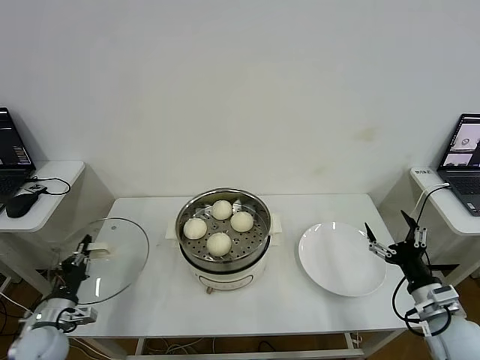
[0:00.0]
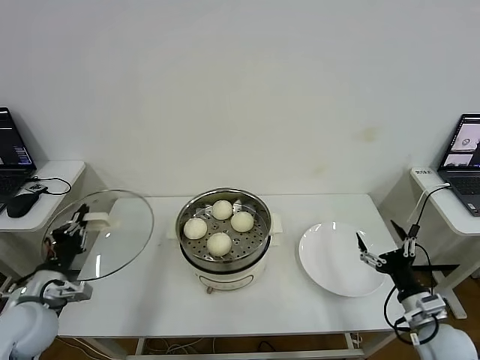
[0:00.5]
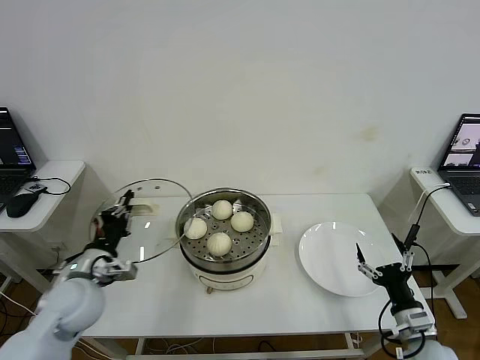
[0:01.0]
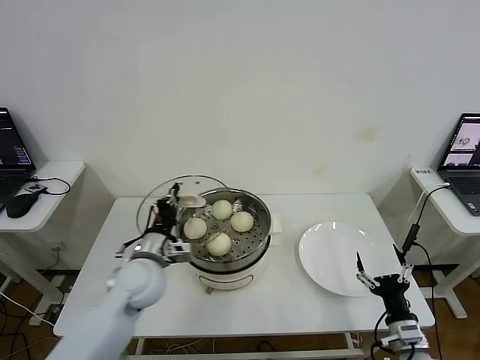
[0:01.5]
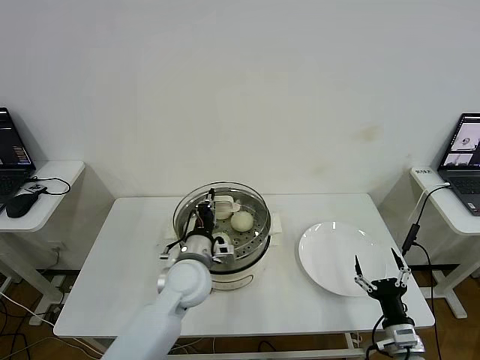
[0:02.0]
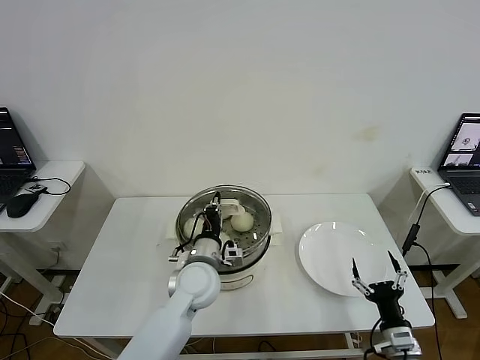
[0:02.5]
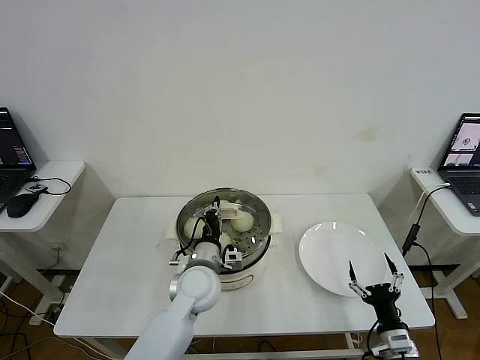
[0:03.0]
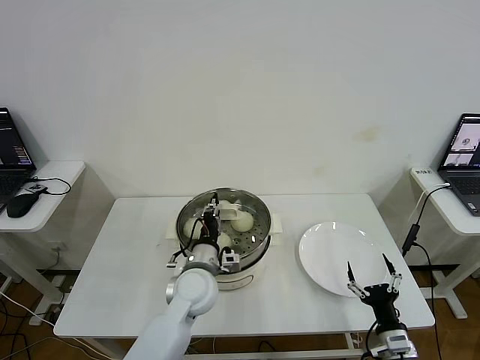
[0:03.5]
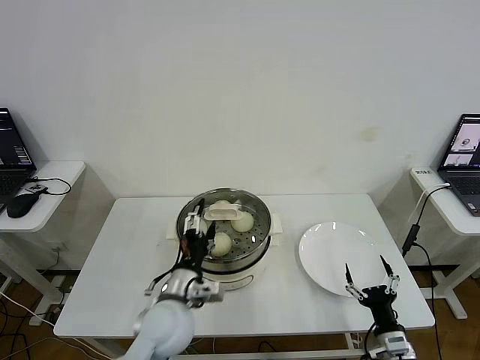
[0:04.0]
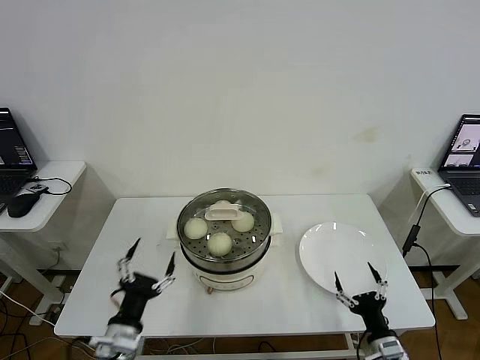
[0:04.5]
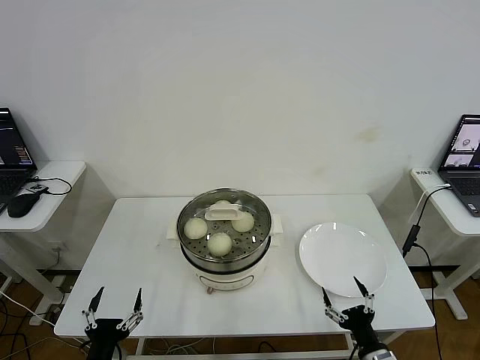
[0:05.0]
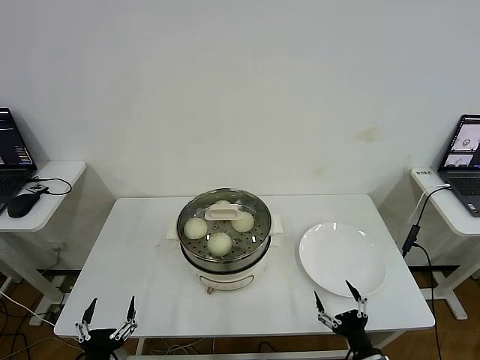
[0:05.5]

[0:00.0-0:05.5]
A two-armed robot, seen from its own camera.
Step, 0:00.0 to 0:03.5: Place the pot lid on the steamer with left gripper.
0:00.0 to 0:02.0: The right gripper shifts approximately 10 cm downward and to the left. Meanwhile the left gripper heads to the right and upward, covering some 35 cm.
0:02.0 to 0:03.5: The grippers stay close to where they were, moving slightly.
0:03.5 to 0:05.5: The right gripper ends up about 5 cm from where it was; the left gripper heads backward and to the left, covering approximately 35 cm, and opens up.

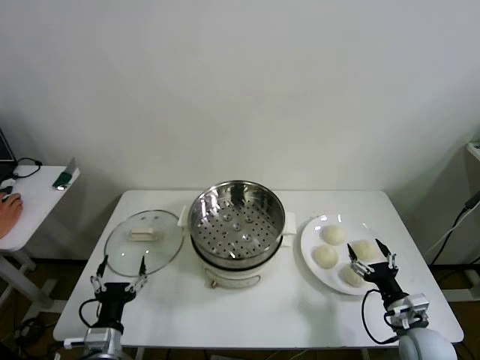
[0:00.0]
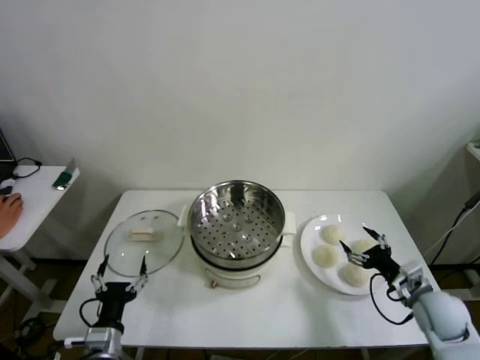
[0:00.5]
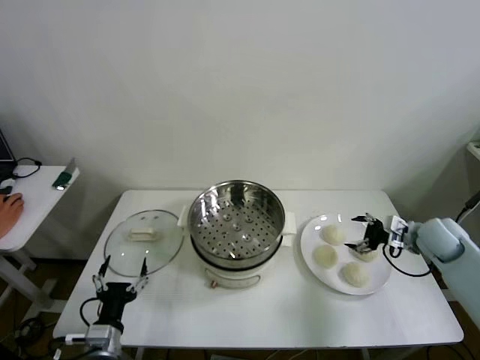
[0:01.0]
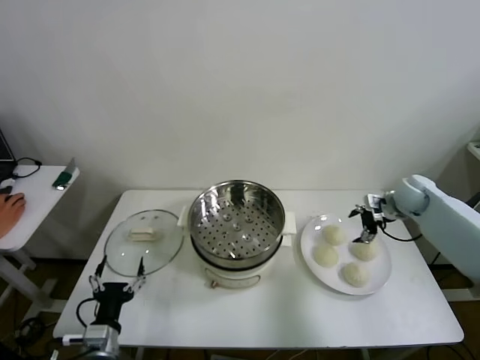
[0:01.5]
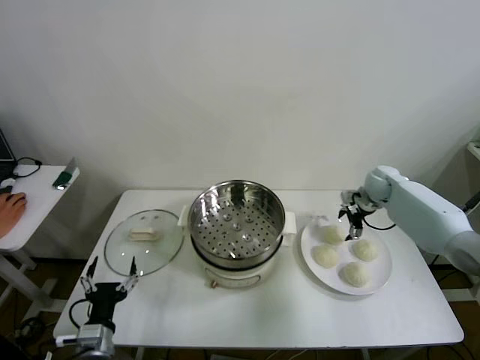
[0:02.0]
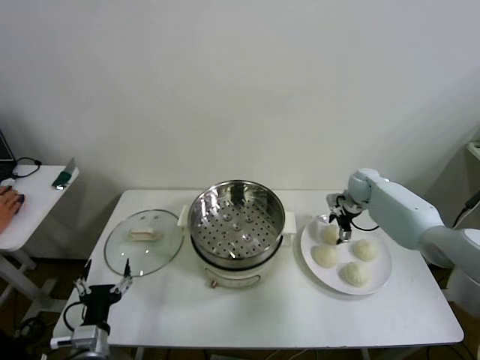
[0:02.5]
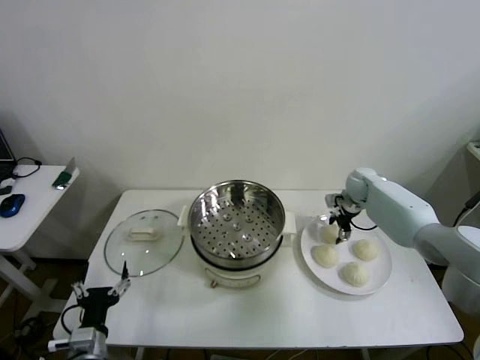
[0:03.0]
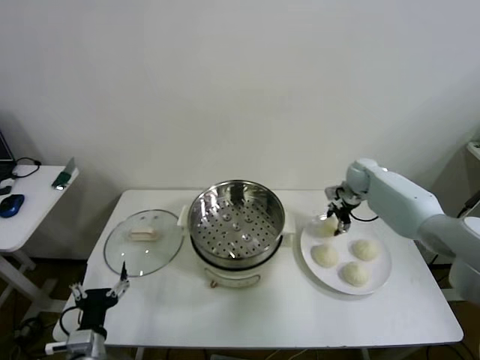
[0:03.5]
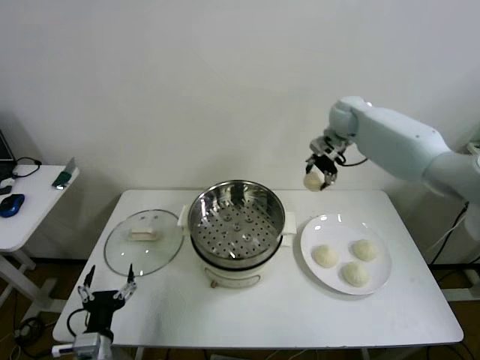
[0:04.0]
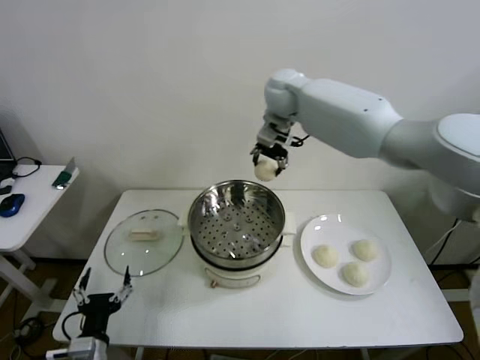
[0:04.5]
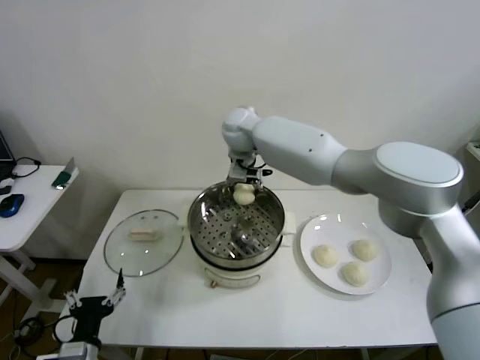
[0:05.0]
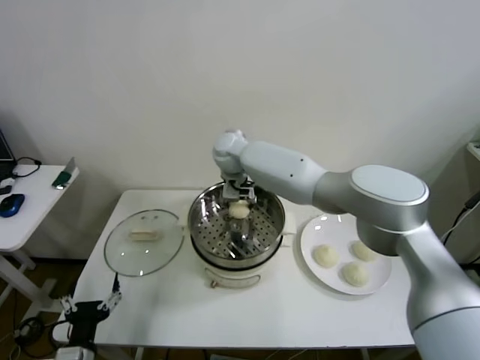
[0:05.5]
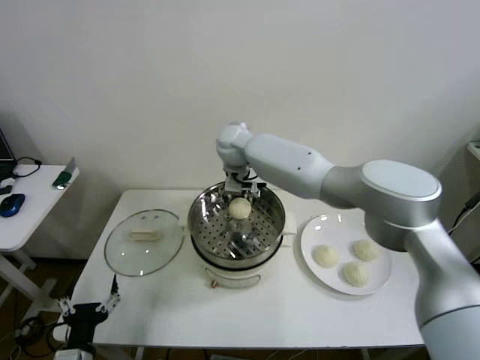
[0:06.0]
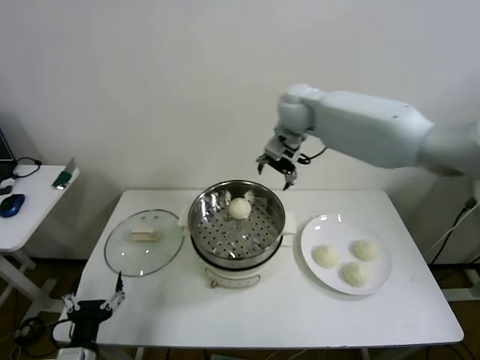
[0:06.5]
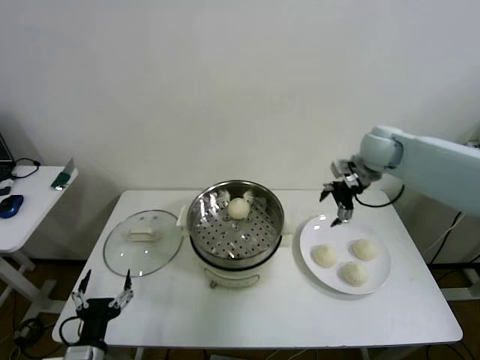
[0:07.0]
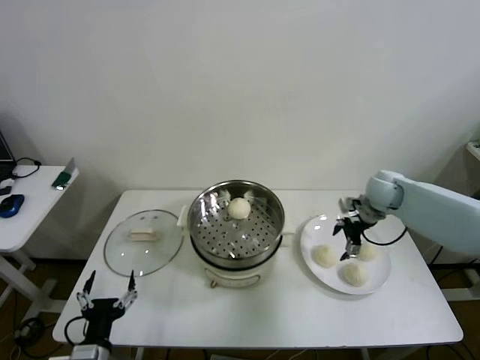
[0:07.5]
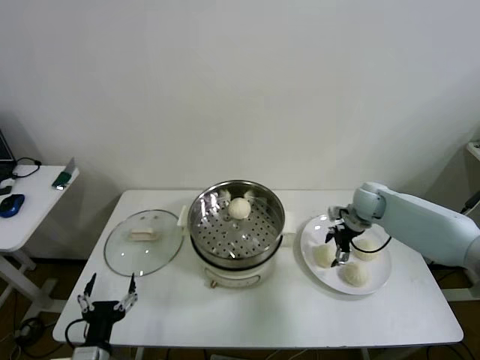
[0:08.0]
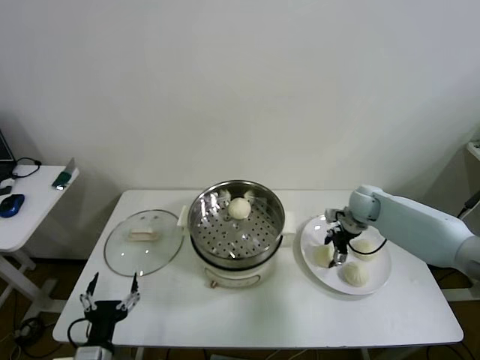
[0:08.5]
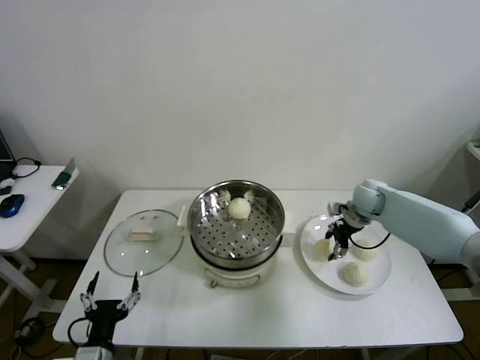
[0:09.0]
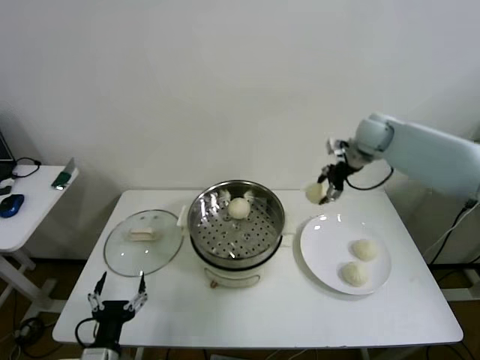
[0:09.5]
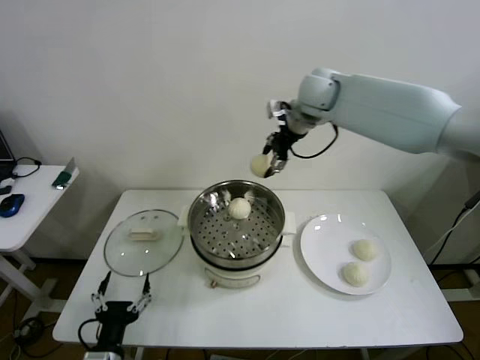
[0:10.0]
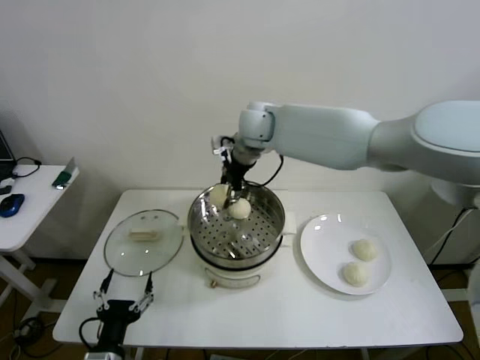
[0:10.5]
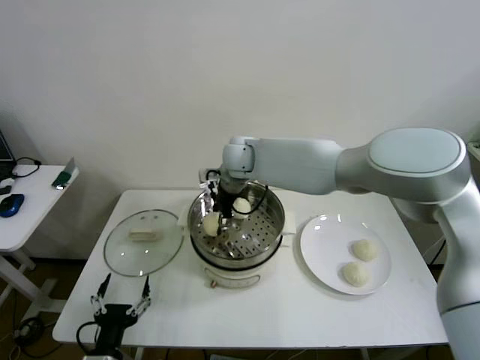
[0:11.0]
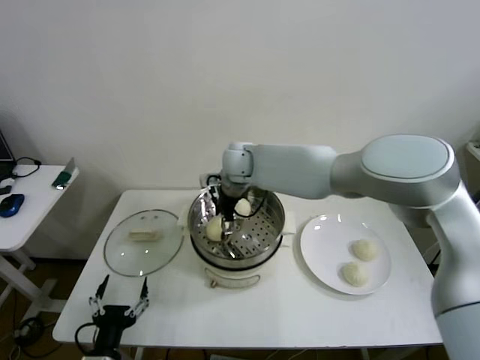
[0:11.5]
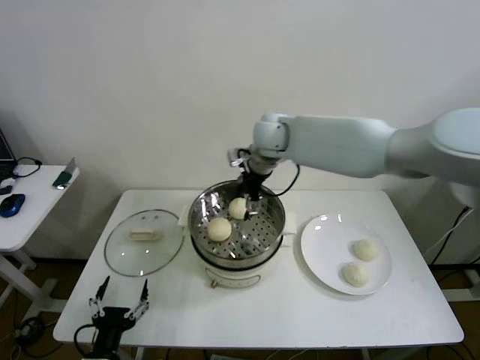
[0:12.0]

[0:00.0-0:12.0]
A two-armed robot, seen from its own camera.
Step, 0:00.0 to 0:03.0: Grasp the baozi in the plate with right gripper.
Step, 0:03.5 to 0:05.5: Place the baozi on the steamer with right gripper.
Step, 0:06.0 to 0:08.5: Grasp the baozi in the plate with right gripper.
Step, 0:09.0 to 0:11.5: Place the baozi on the steamer with right gripper.
0:02.0 to 0:04.0: The right gripper travels upward and to the left by some 25 cm, and closes up.
0:04.0 to 0:06.0: The right gripper is displaced to the left by approximately 25 cm, and opens up.
0:06.0 to 0:08.0: The right gripper travels to the right and downward by roughly 40 cm.
0:08.0 to 0:10.0: The right gripper is displaced upward and to the left by some 35 cm, and closes.
0:10.0 to 0:12.0: The right gripper moves downward and to the left, approximately 10 cm, and opens.

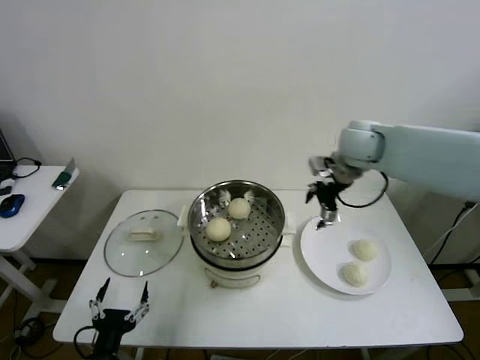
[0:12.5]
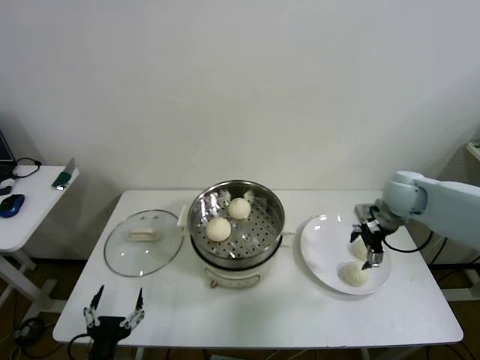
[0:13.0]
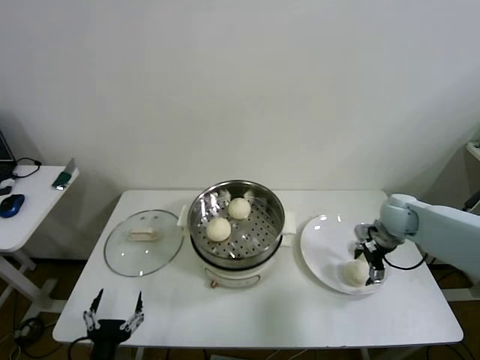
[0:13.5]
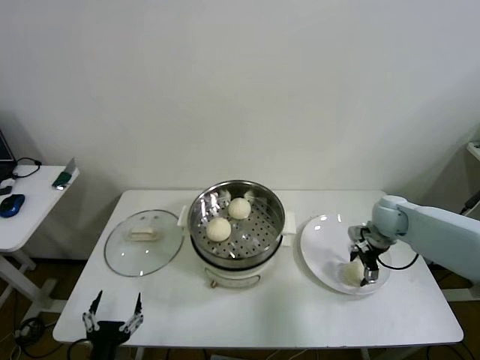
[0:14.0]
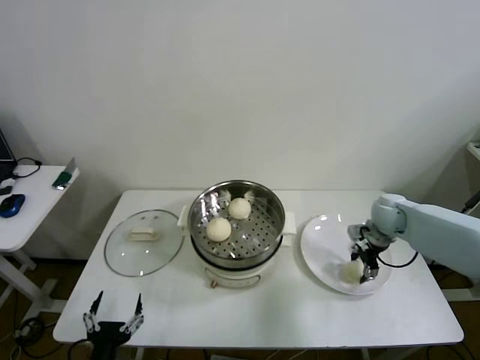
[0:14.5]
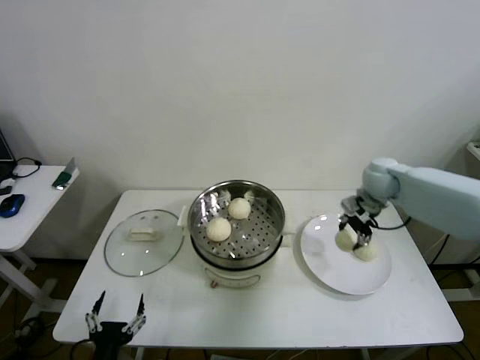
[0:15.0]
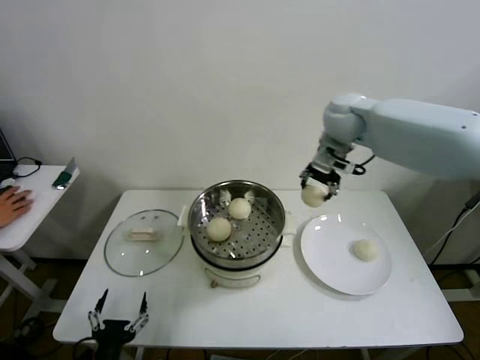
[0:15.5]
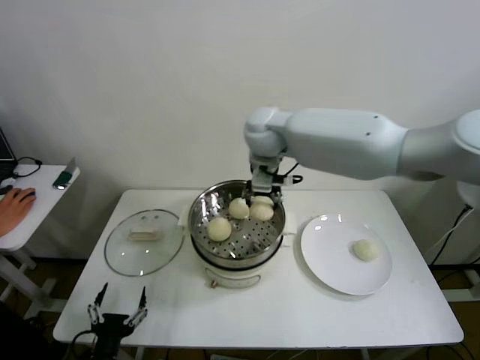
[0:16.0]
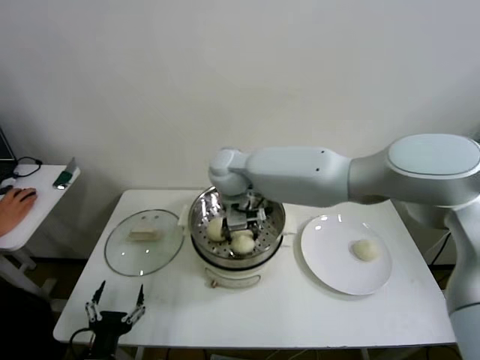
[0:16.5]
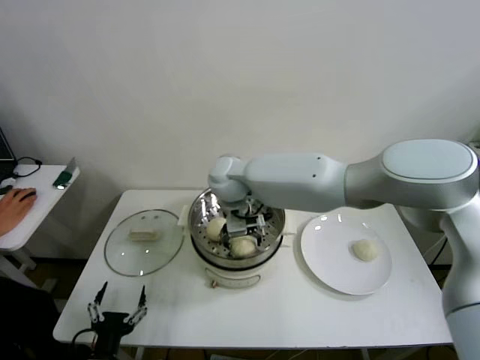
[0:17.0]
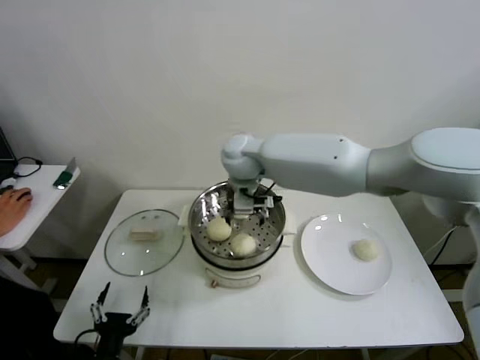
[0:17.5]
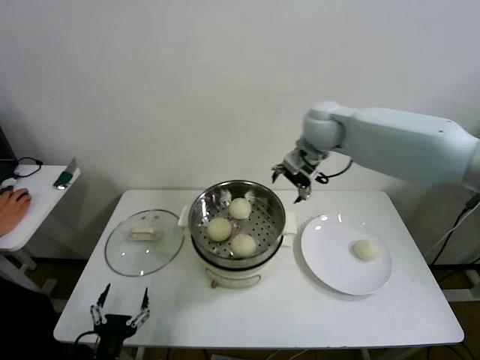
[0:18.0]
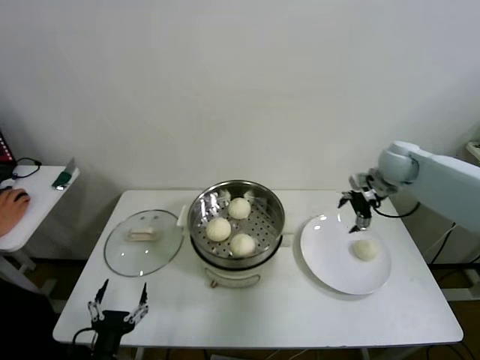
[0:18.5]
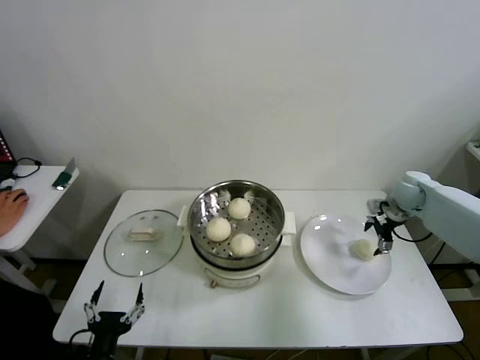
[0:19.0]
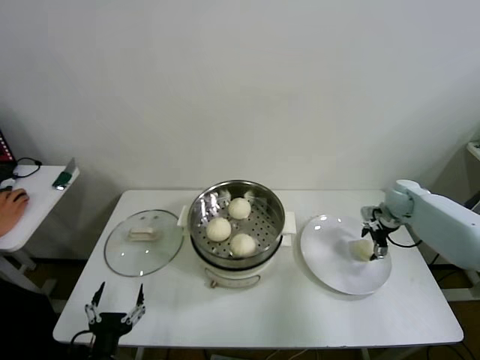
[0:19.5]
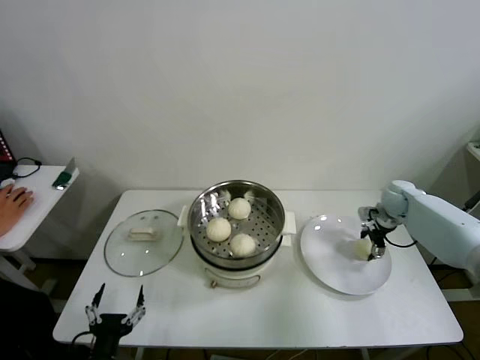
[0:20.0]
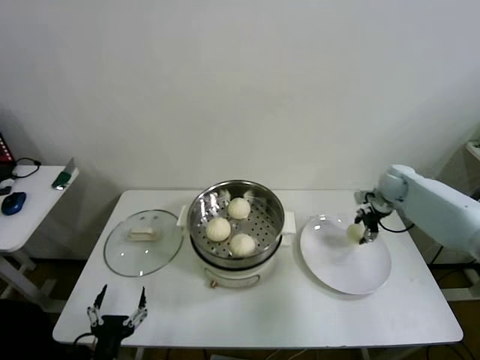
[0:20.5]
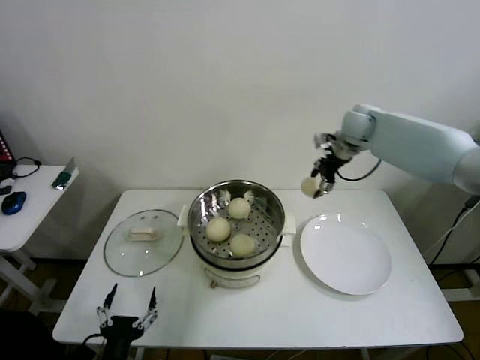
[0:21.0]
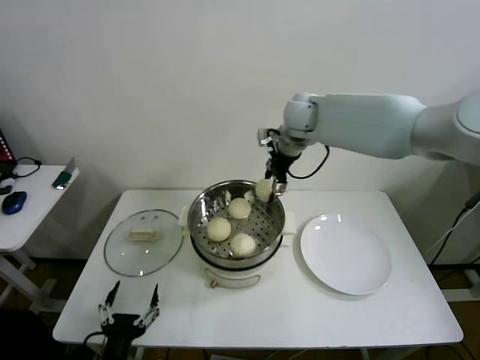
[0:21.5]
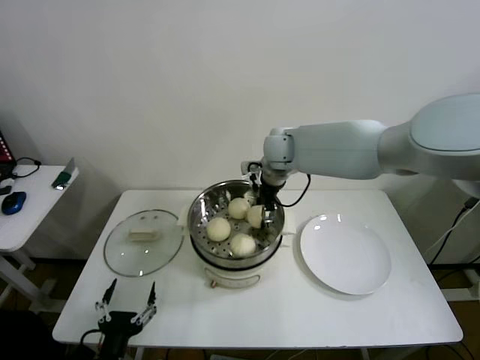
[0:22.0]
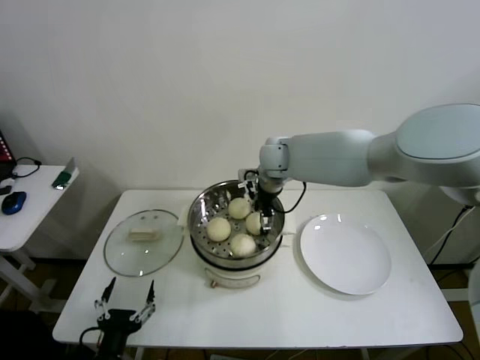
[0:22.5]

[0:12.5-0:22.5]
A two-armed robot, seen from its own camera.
Step, 0:12.5 to 0:14.0: Grasp the baozi in the plate with right gripper.
Step, 0:14.5 to 0:17.0: Place the baozi on the steamer with right gripper.
Step, 0:17.5 to 0:20.0: Grasp the baozi in the plate with right gripper.
Step, 0:20.5 to 0:22.5: Place the baozi on the steamer with right gripper.
0:12.5 to 0:14.5: The right gripper shifts some 20 cm downward and to the right, and closes up.
0:14.5 to 0:16.5: The right gripper heads to the left, covering approximately 40 cm.
0:16.5 to 0:18.5: The right gripper is displaced to the right by approximately 40 cm, and opens up.
0:18.5 to 0:20.5: The right gripper heads downward, covering approximately 10 cm, and closes its fingers.
0:20.5 to 0:22.5: The right gripper goes some 35 cm to the left, and opens up.
